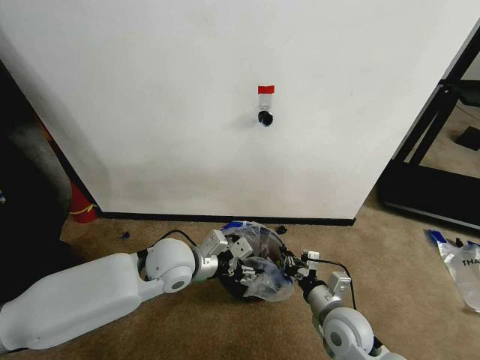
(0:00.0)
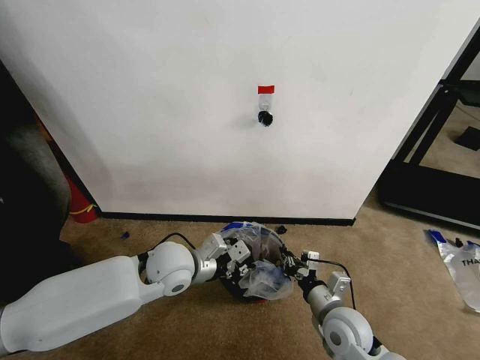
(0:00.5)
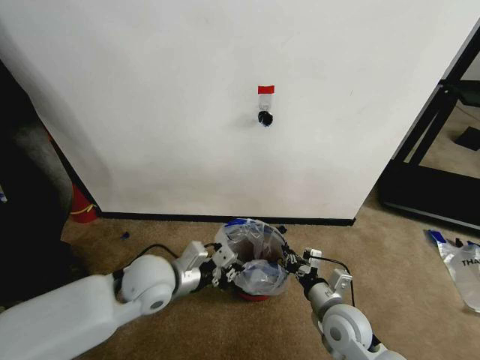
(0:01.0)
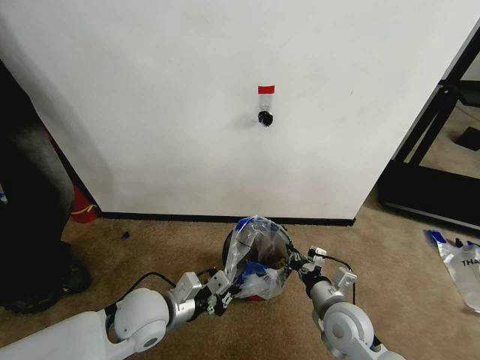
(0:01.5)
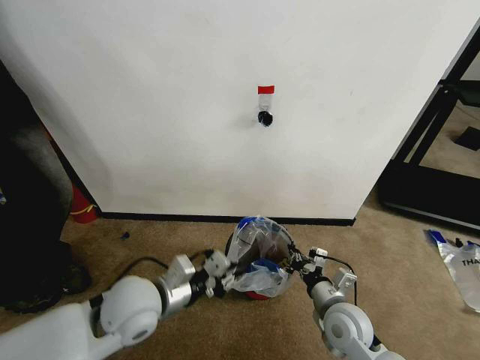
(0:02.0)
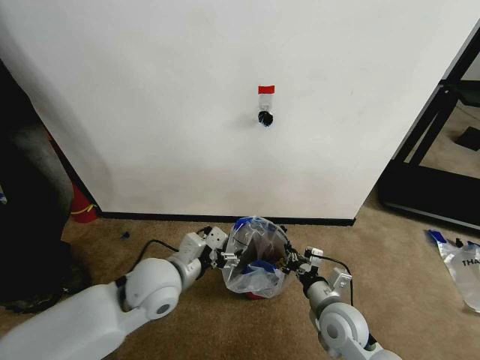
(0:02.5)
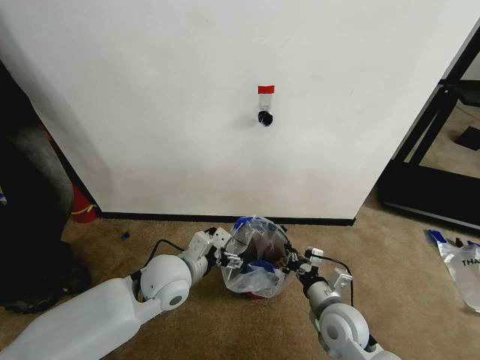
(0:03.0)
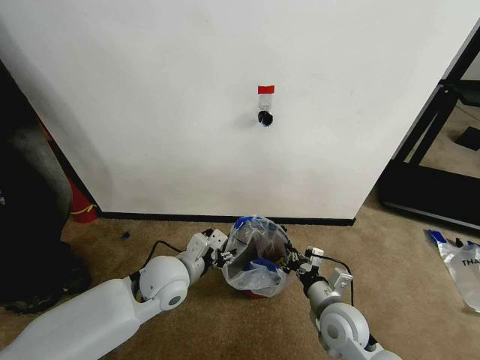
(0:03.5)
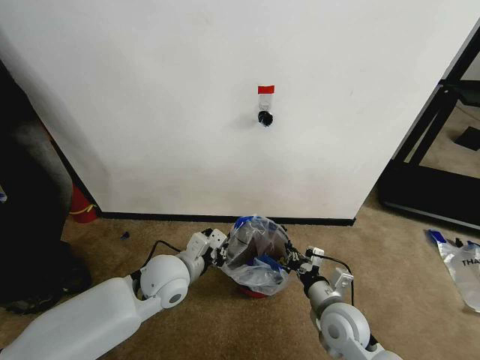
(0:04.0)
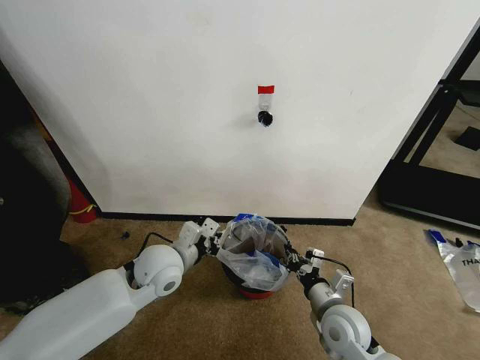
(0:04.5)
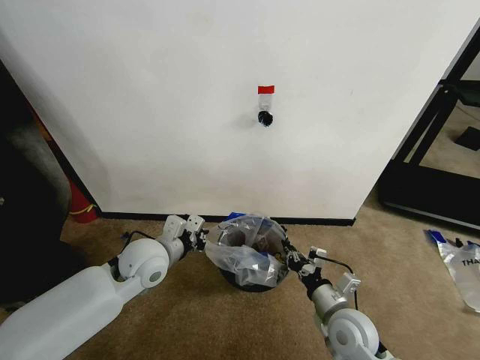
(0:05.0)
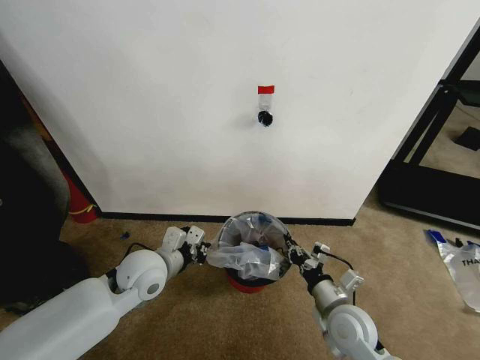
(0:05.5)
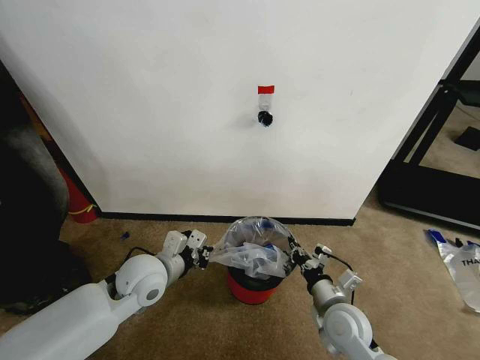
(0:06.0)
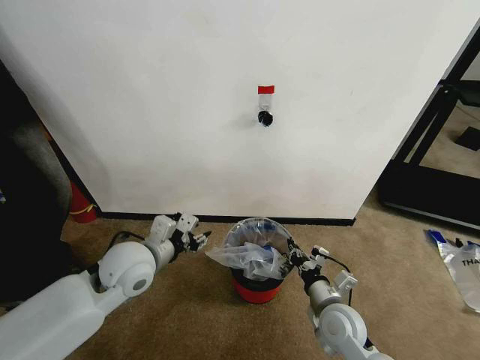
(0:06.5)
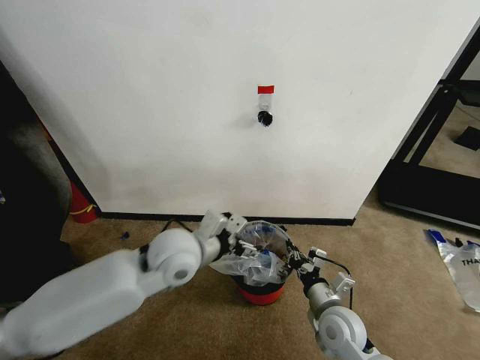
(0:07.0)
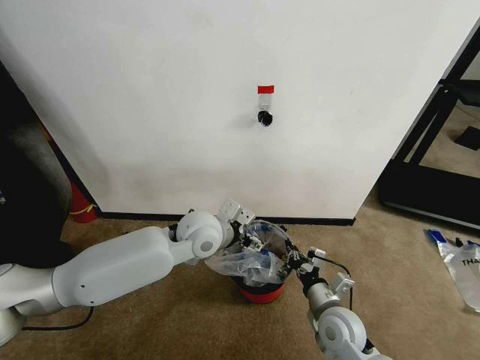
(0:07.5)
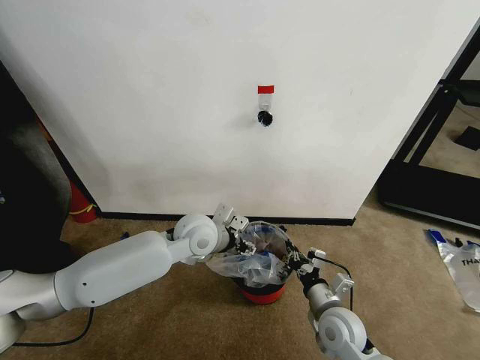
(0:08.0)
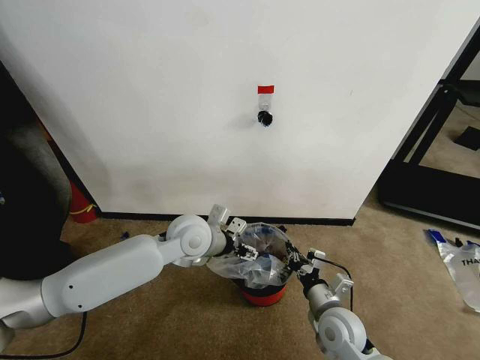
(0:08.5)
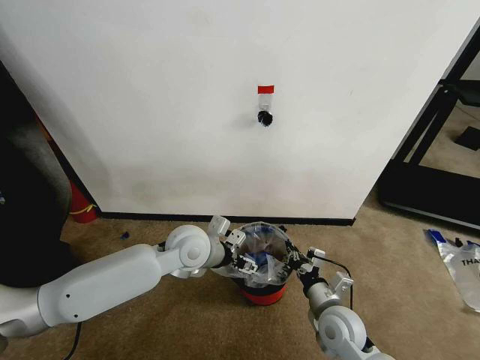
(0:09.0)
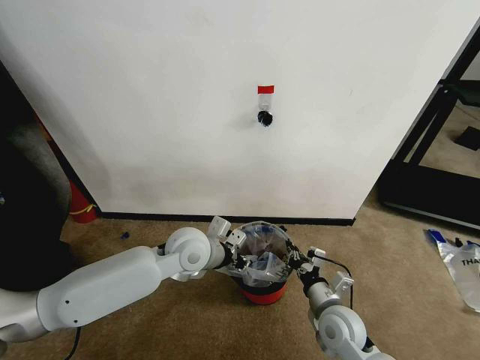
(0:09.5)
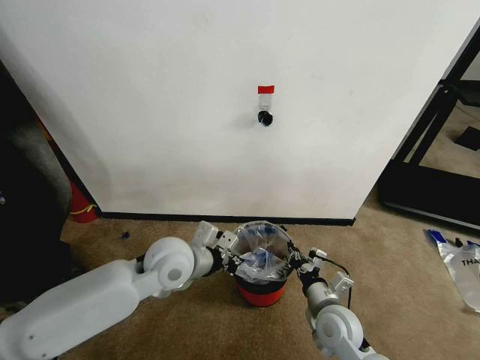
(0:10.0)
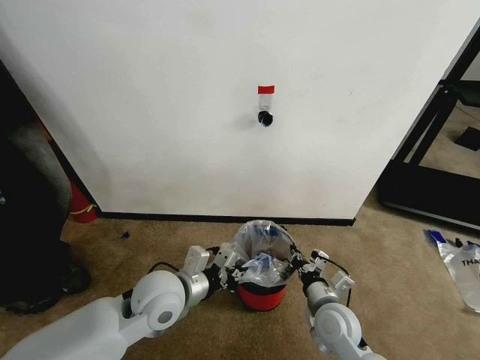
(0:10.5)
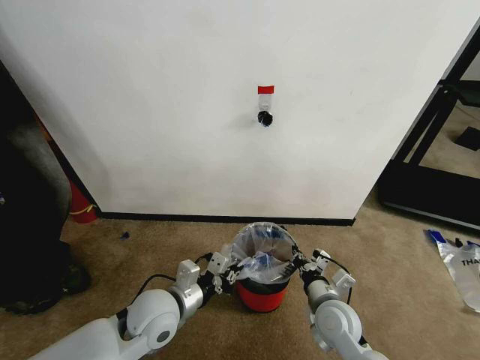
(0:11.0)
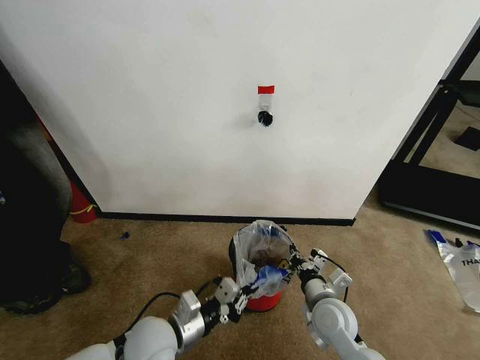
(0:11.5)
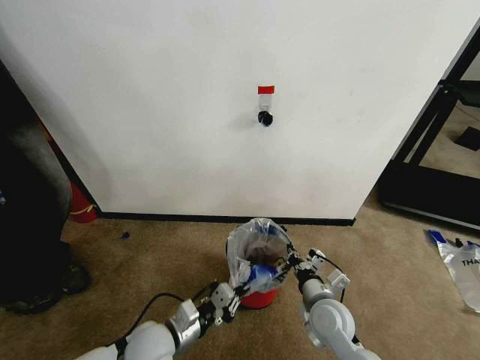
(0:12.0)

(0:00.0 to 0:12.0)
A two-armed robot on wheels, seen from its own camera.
Task of the whole recording: Pick up the garbage bag from the wall and place it over the trash bin.
0:00.0 - 0:02.0: The left gripper goes approximately 10 cm backward.
0:02.0 - 0:04.0: The left gripper shifts roughly 5 cm forward, and opens, then closes once more.
0:04.0 - 0:06.0: The grippers make only small movements.
0:06.0 - 0:08.0: The left gripper shifts roughly 15 cm to the right and forward, and opens.
0:08.0 - 0:10.0: The left gripper heads backward, covering some 5 cm, and closes its fingers.
0:10.0 - 0:12.0: The left gripper heads downward and backward, covering approximately 20 cm.

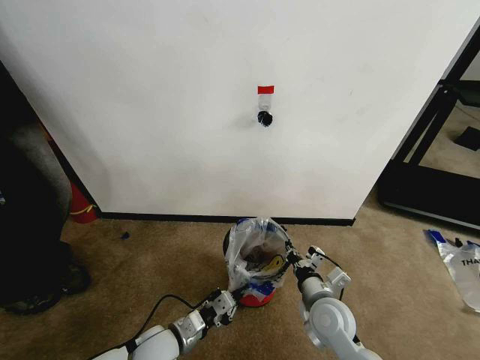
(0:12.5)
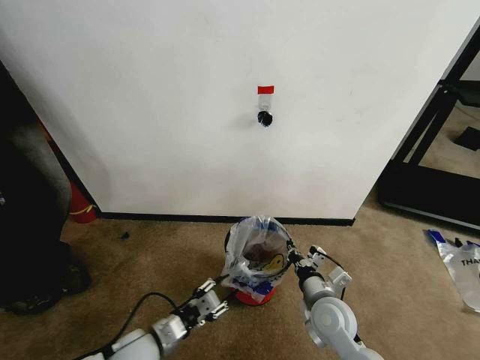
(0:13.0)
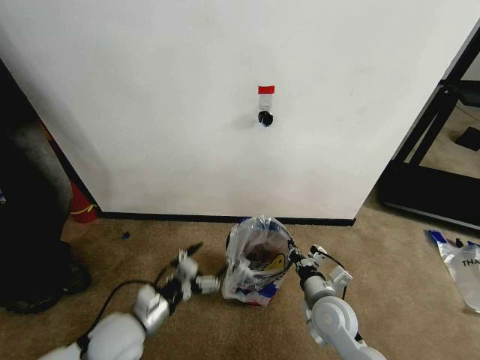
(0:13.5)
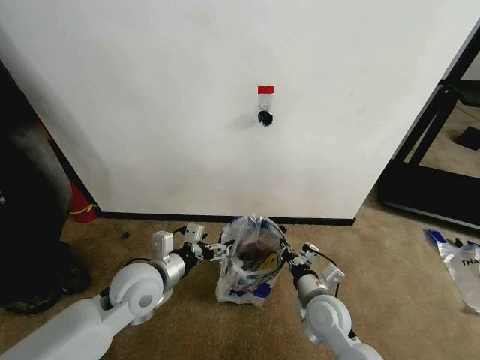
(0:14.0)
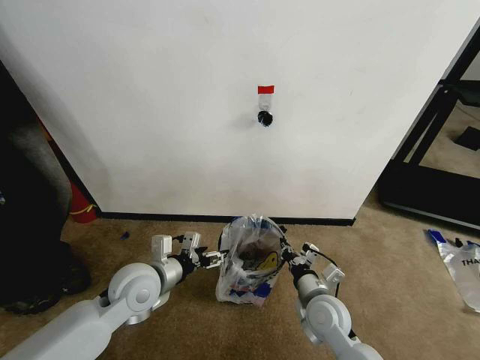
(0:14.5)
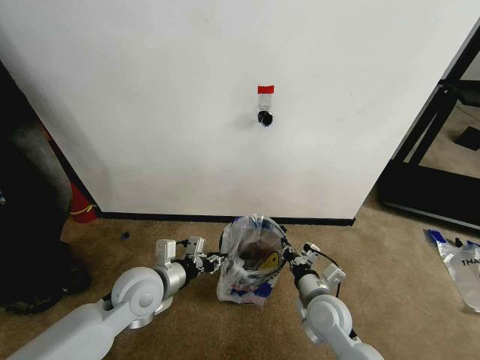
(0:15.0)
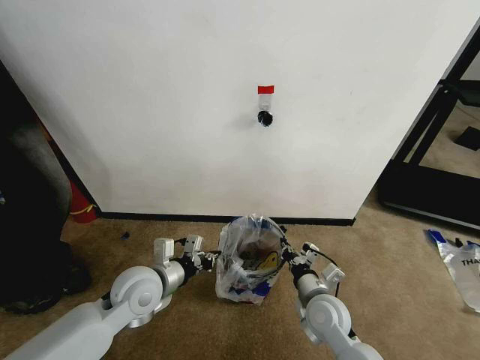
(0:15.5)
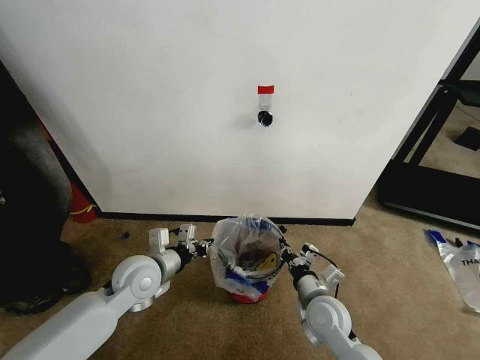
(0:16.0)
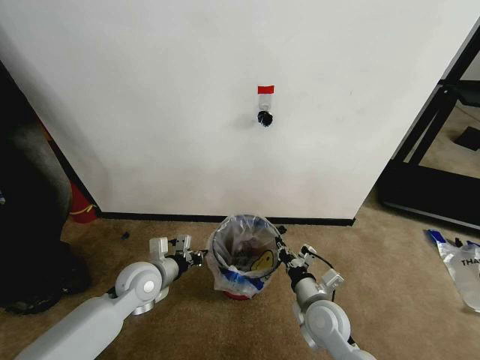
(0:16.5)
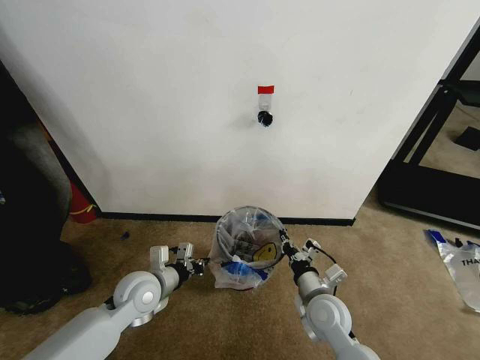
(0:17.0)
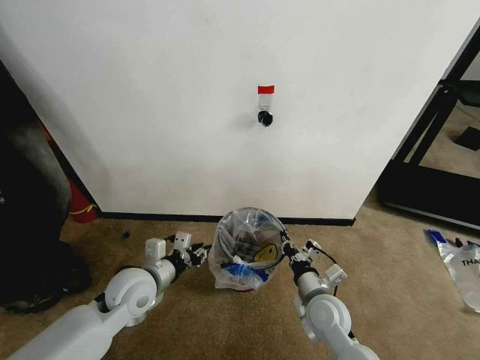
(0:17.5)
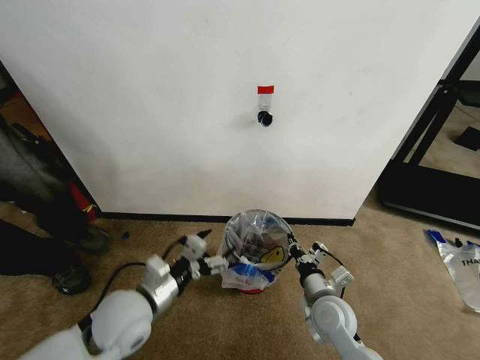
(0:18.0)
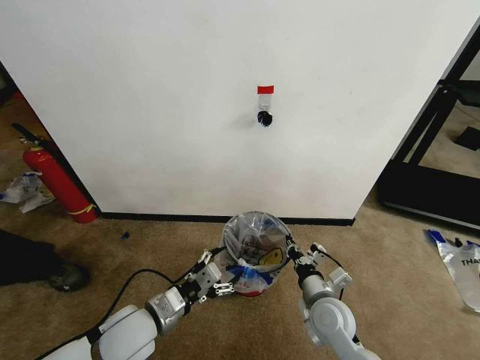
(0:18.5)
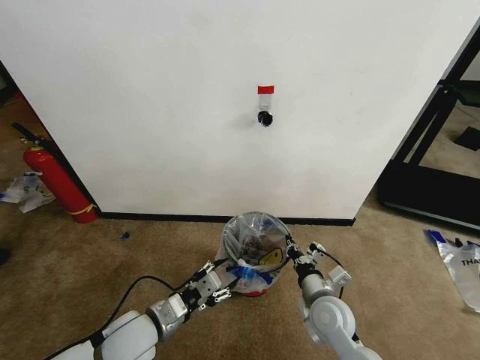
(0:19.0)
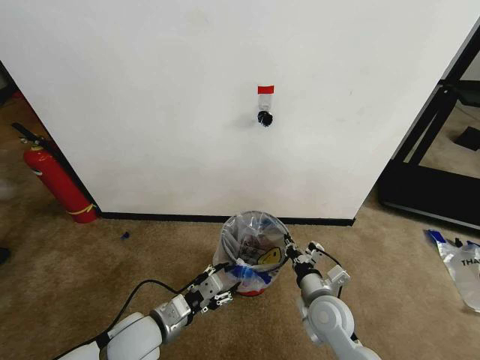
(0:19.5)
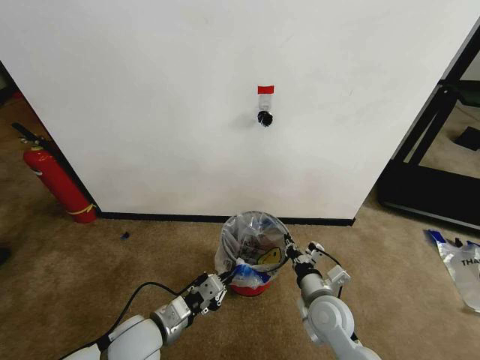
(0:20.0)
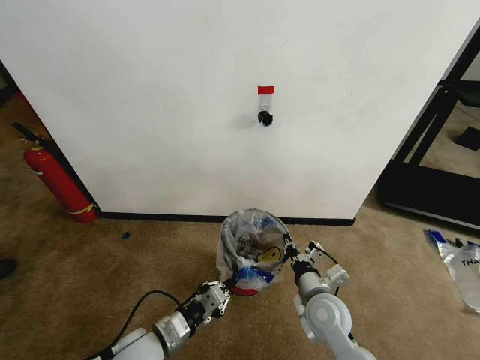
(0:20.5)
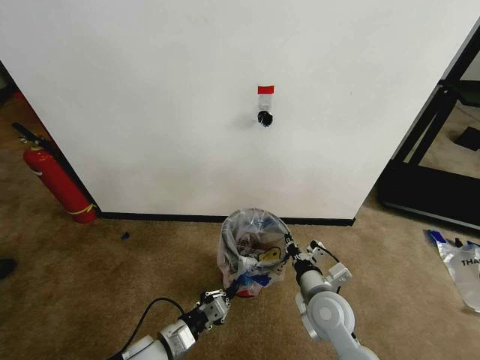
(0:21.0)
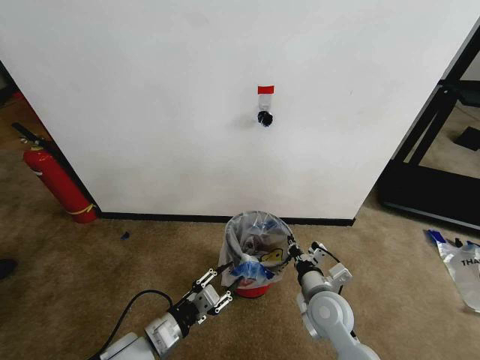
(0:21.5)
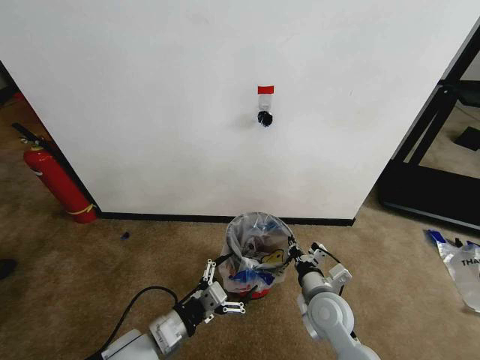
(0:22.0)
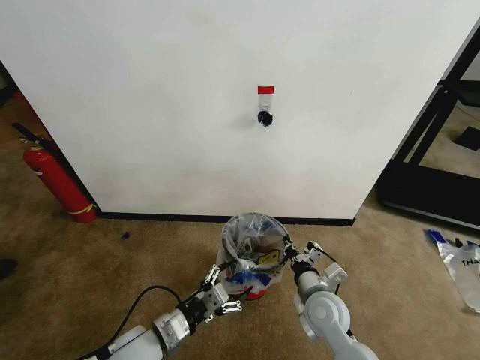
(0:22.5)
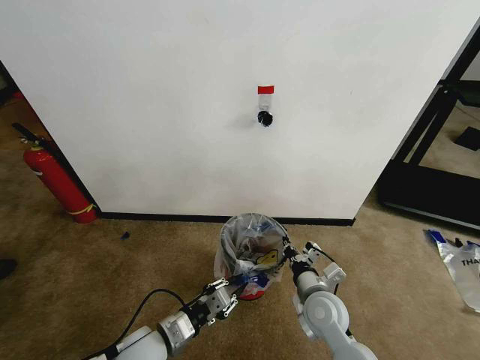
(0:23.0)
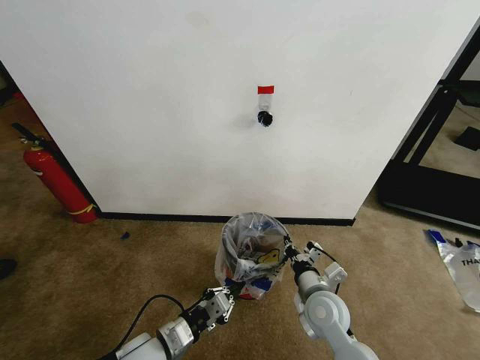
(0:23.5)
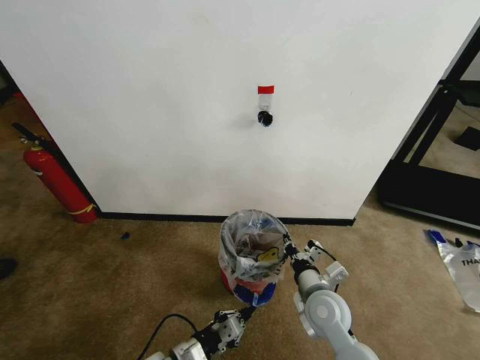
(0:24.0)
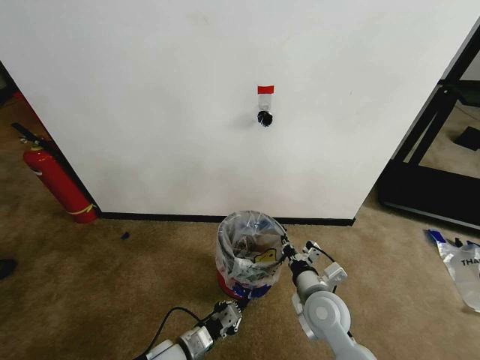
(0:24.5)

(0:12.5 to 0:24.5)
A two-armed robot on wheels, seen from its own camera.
Task of the whole recording: Pick up the garbage bag from the wall and place it over the trash bin.
0:12.5 - 0:14.5: The left gripper shifts roughly 15 cm upward and forward, and opens up.
0:14.5 - 0:16.5: The left gripper shifts roughly 5 cm downward, and closes its fingers.
0:16.5 - 0:18.5: The left gripper moves backward, some 10 cm, and opens its fingers.
0:18.5 - 0:20.5: The left gripper moves downward, roughly 5 cm, and closes up.
0:20.5 - 0:22.5: The left gripper moves roughly 5 cm downward and comes back, and opens.
0:22.5 - 0:24.5: The left gripper travels downward by roughly 10 cm, and closes.

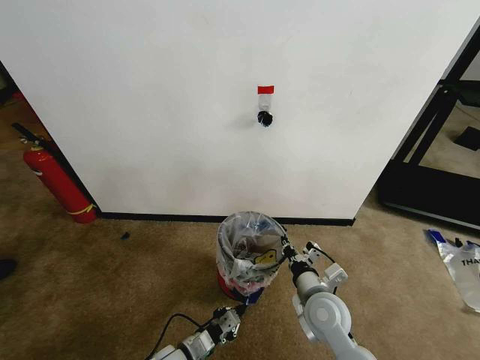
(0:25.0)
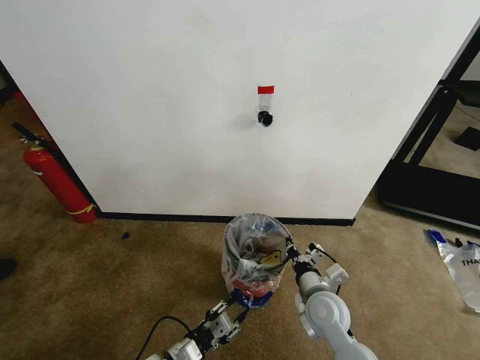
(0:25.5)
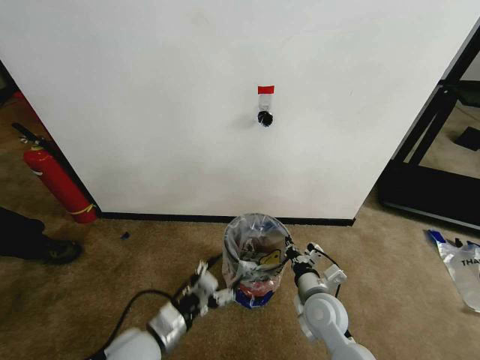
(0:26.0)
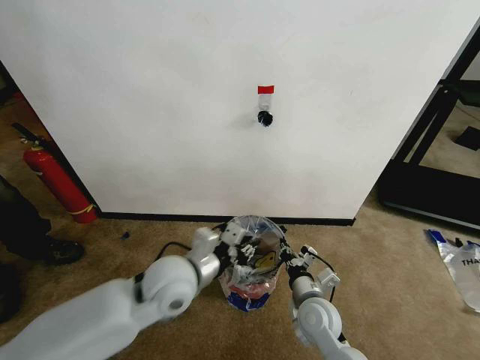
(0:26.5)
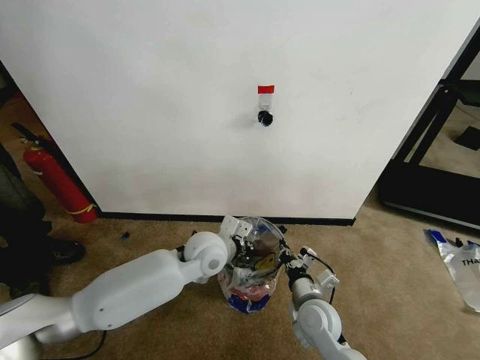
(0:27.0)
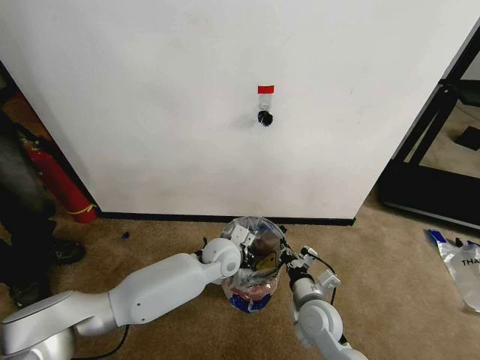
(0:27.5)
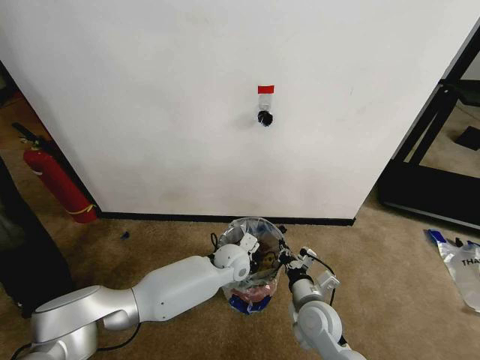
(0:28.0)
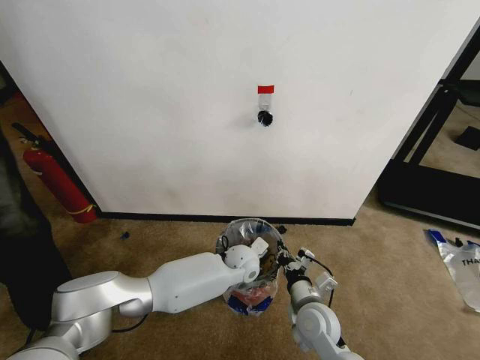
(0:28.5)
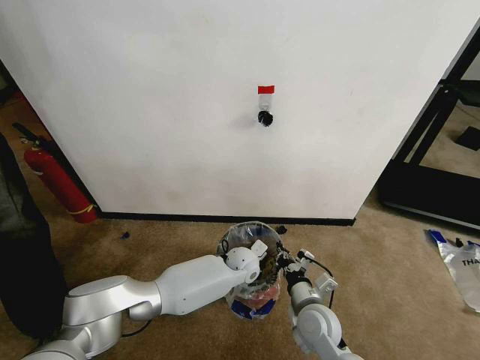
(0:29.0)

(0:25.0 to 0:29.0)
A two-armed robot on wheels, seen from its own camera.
Task of the whole recording: Pick up the garbage bag from the wall and place it over the trash bin.
0:25.0 - 0:27.0: The left gripper moves upward, forward and to the right, some 30 cm, and opens and closes again.
0:27.0 - 0:29.0: The left gripper travels downward and to the right by roughly 15 cm.
